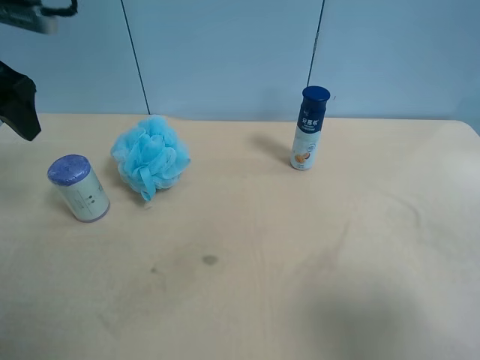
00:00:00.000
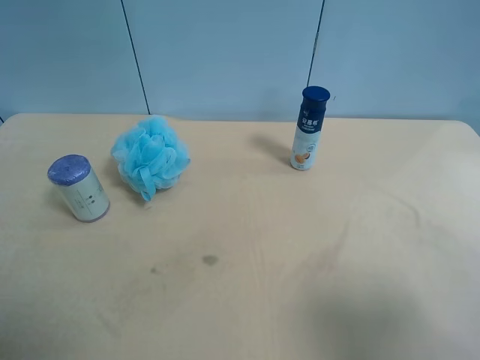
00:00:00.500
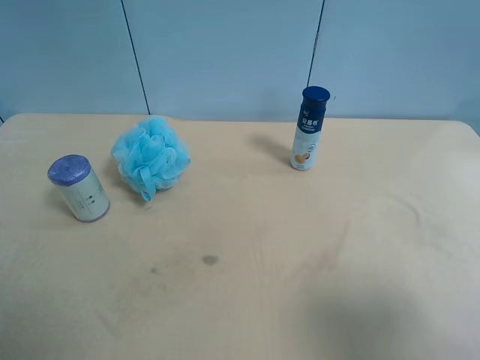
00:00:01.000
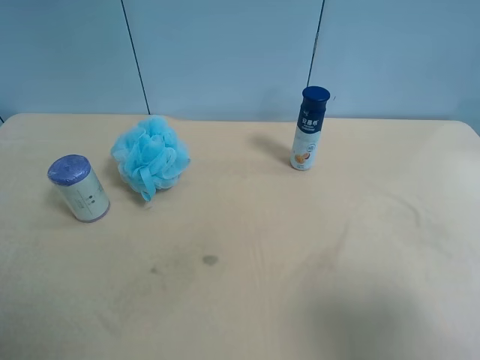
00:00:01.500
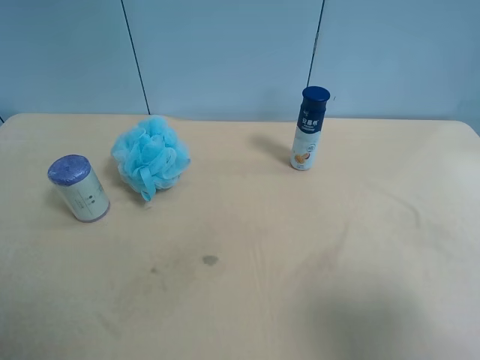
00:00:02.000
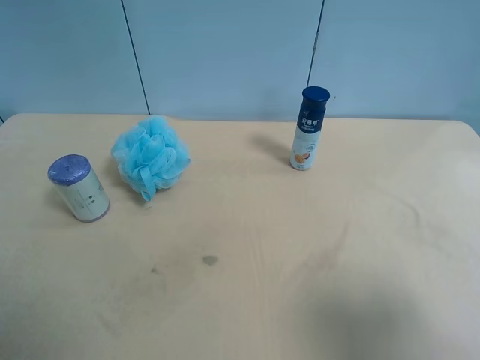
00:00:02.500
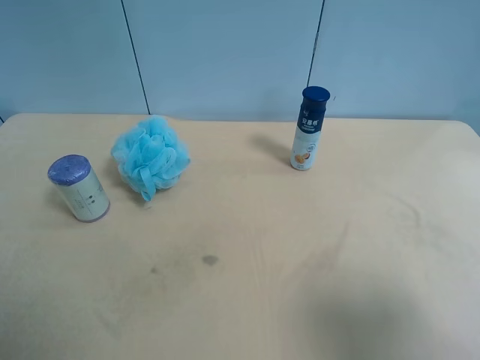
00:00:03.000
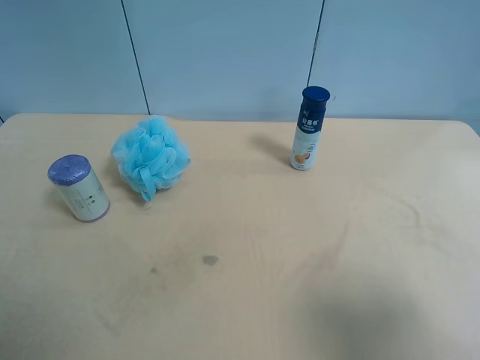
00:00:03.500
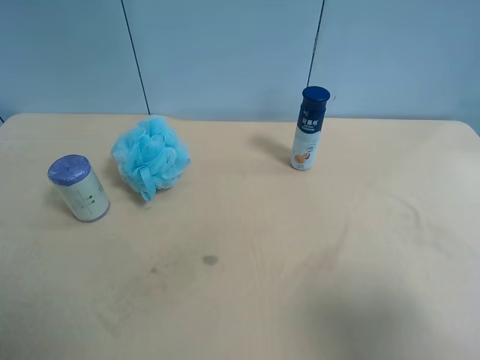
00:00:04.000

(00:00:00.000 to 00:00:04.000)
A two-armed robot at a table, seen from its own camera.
Task of the whole recording: use the right gripper to pick up the item and transfer it from the right gripper to the left gripper.
00:00:00.000 - 00:00:02.000: The left gripper is displaced backward by some 25 cm.
